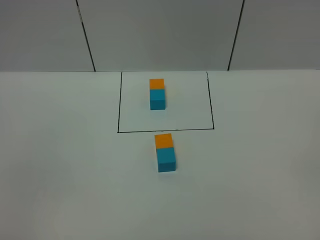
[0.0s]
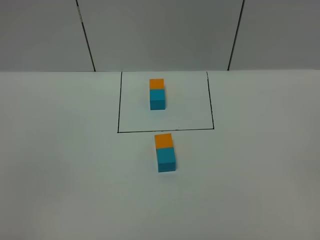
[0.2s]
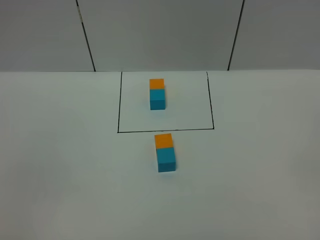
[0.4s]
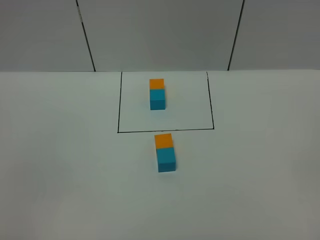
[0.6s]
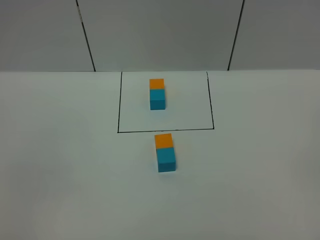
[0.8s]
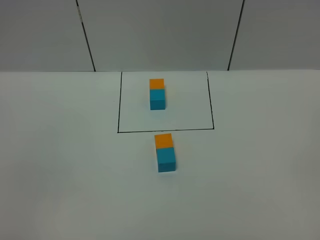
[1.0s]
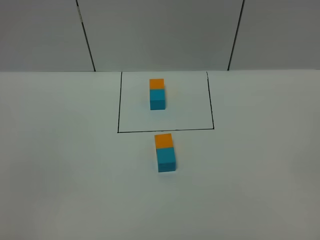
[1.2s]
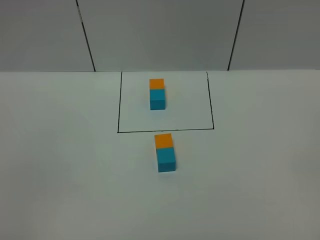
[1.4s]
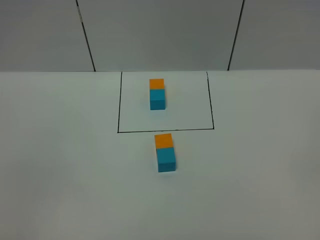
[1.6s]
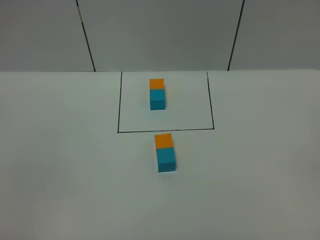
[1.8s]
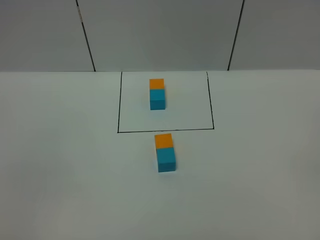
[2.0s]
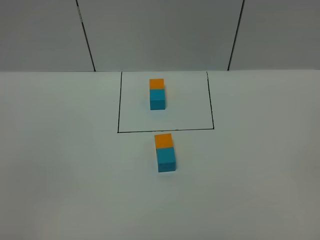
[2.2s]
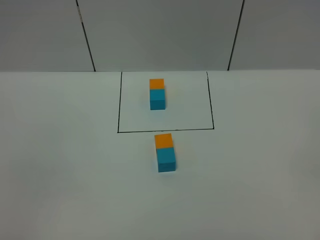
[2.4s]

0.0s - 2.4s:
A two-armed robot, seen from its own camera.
Task of the whole recording: According to the building block template in front, assemble the scattered blocks together.
0.0s - 2.4s: Both grippers stay put.
